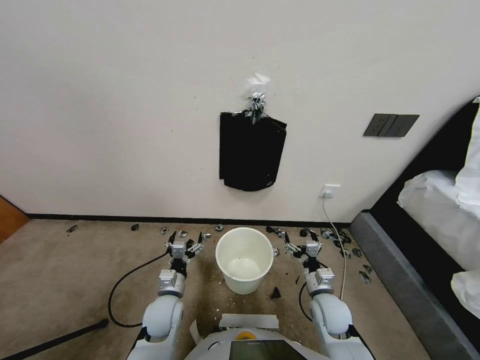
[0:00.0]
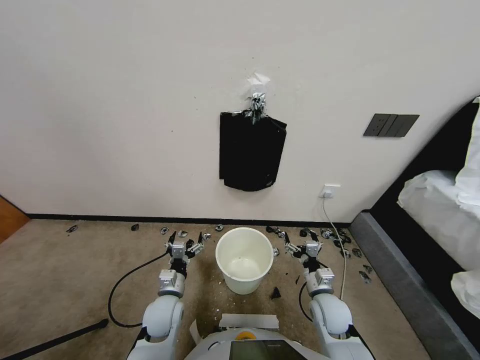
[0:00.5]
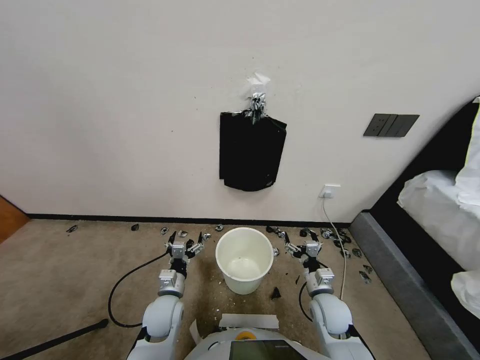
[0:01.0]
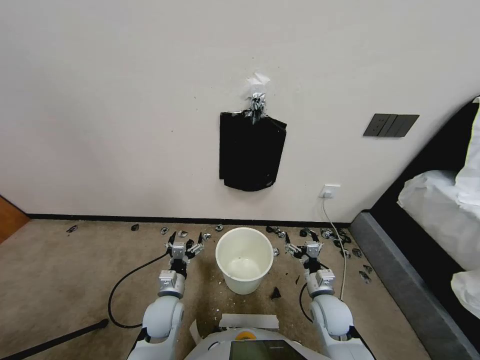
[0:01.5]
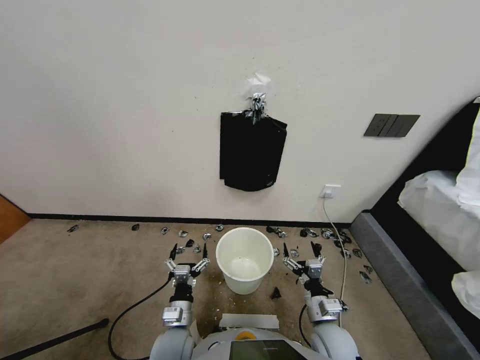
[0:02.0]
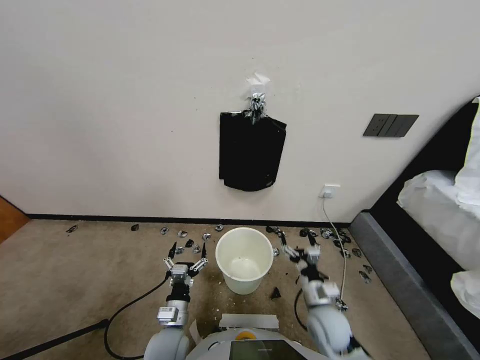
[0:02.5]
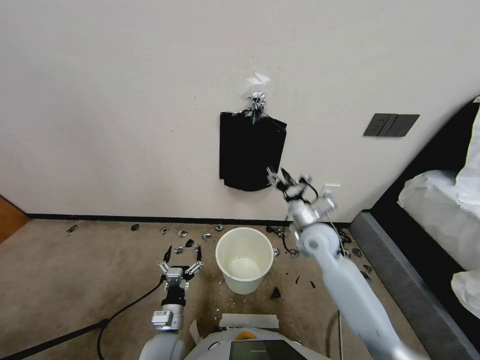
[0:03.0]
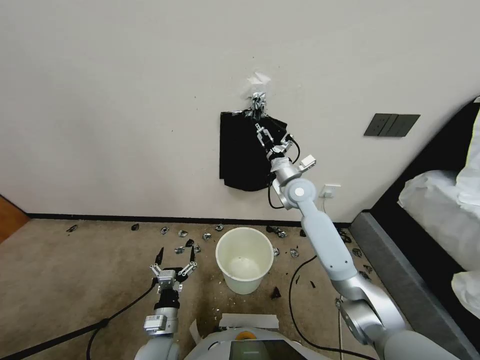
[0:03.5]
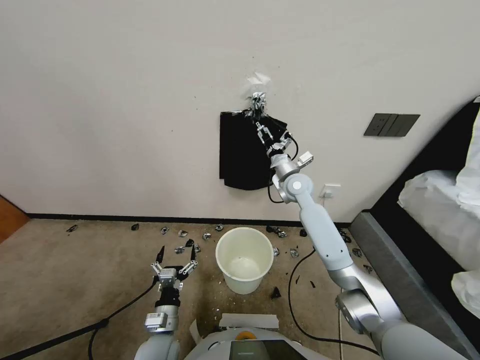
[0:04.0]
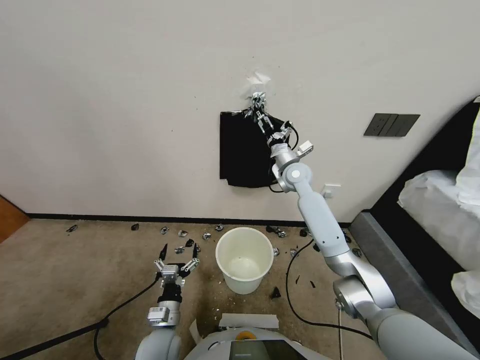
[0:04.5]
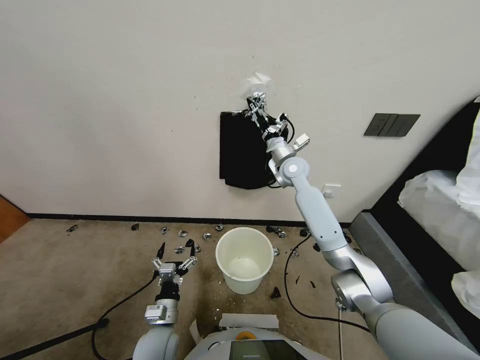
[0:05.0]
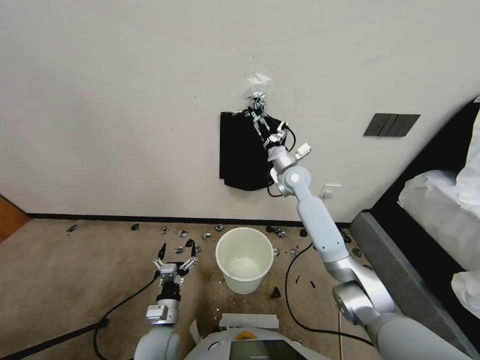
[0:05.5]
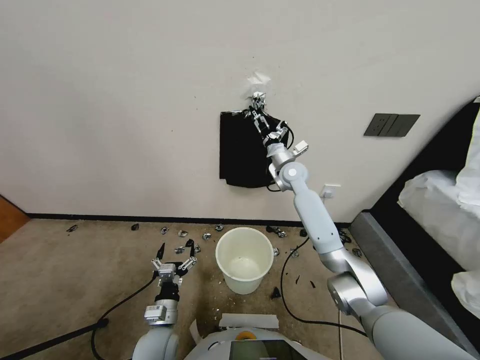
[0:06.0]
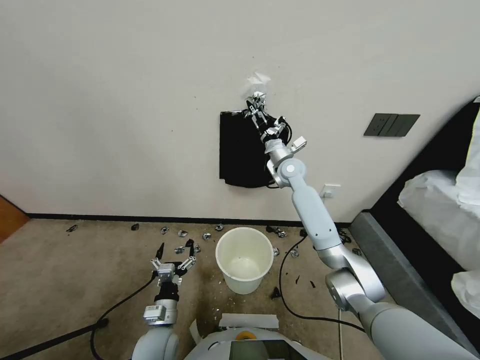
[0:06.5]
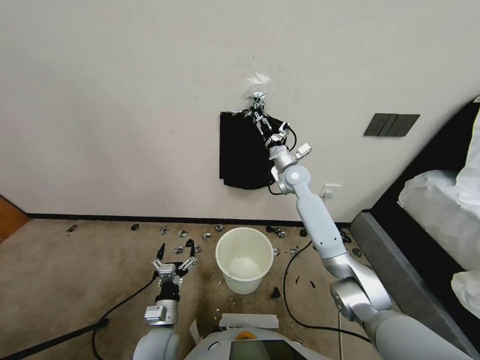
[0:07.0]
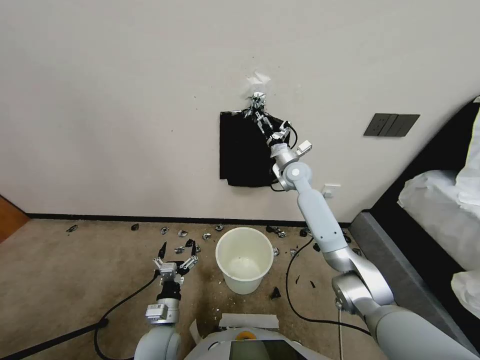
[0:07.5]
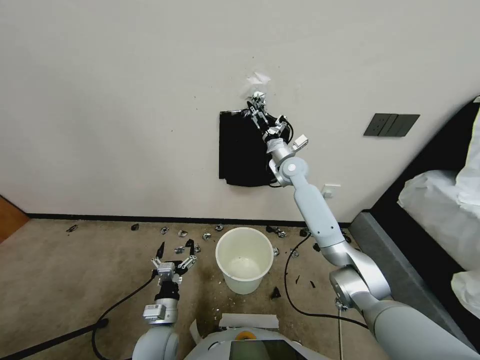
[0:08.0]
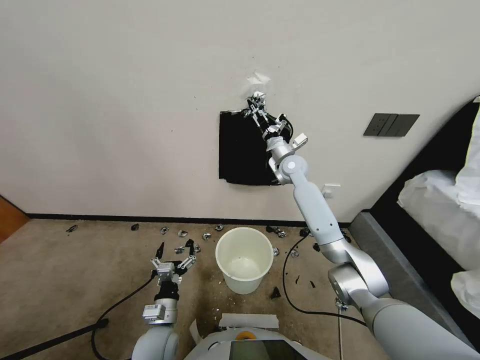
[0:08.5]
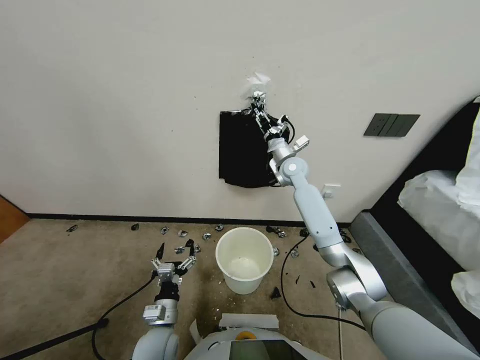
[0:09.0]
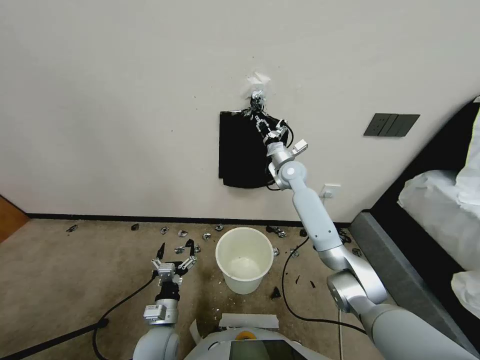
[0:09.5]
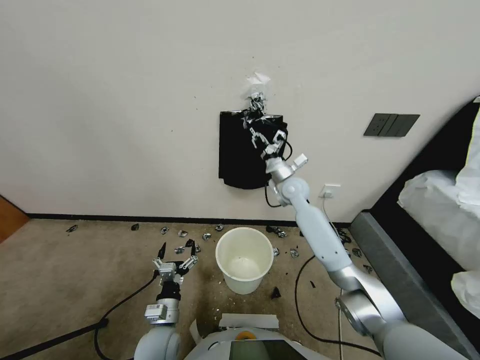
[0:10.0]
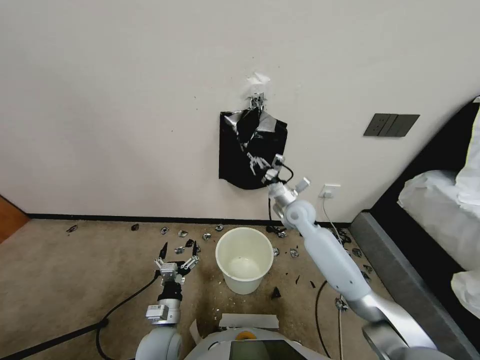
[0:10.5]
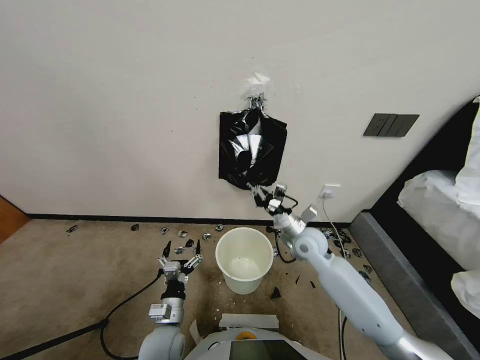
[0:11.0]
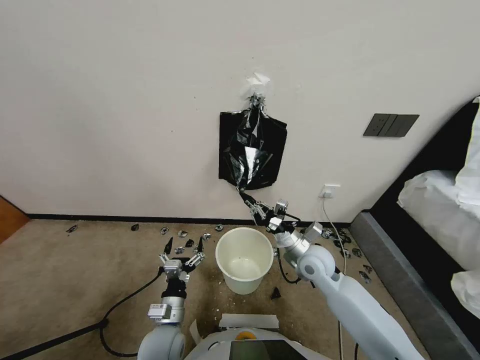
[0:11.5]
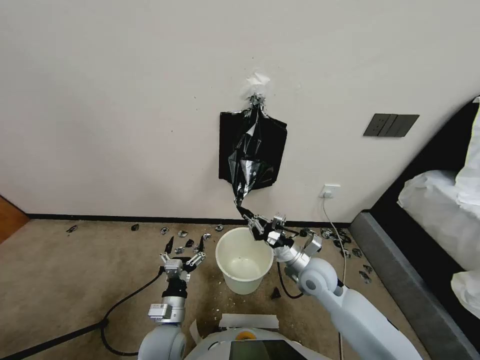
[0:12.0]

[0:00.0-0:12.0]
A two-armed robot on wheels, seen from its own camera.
Task of the whole recording: Place a trash bag onto the trash bin.
0:02.0 to 0:04.0: The right gripper heads forward and upward, covering some 40 cm.
0:04.0 to 0:08.0: The grippers make only small movements.
0:08.0 to 0:10.0: The right gripper shifts some 10 cm backward and downward, and closes up.
0:10.0 to 0:12.0: The right gripper goes approximately 25 cm backward and downward.

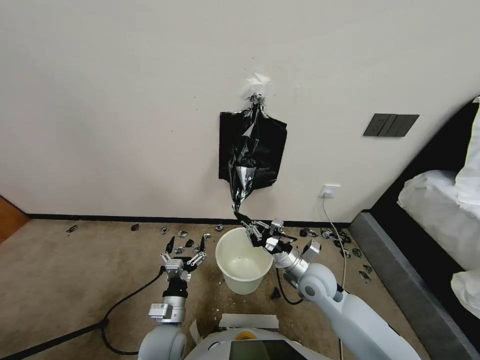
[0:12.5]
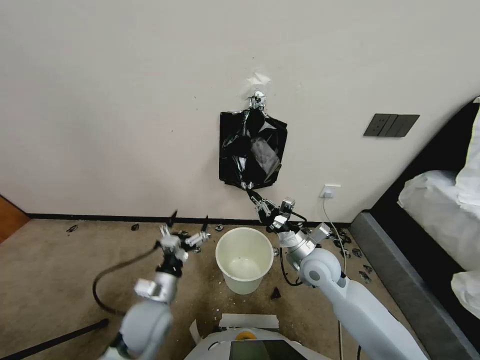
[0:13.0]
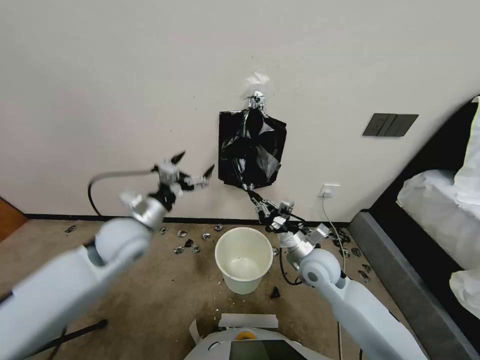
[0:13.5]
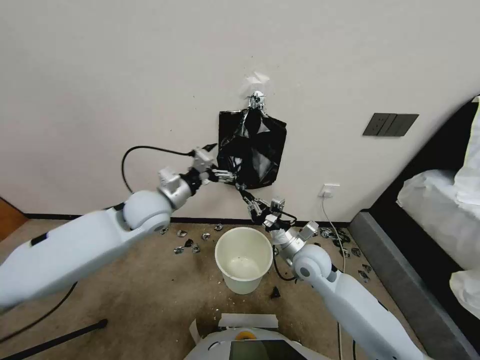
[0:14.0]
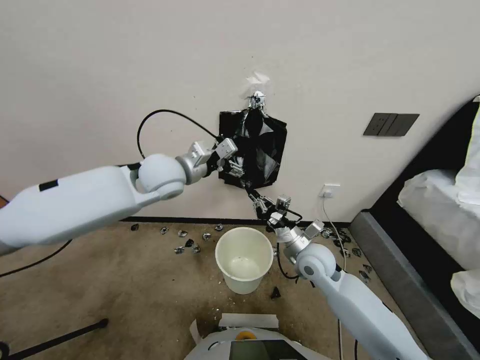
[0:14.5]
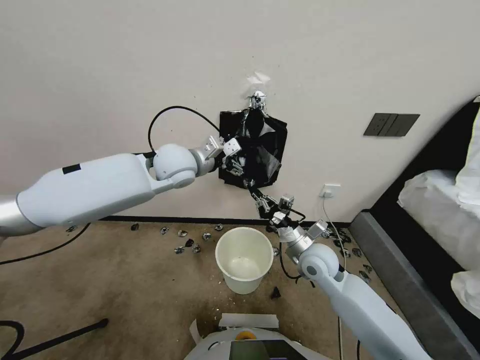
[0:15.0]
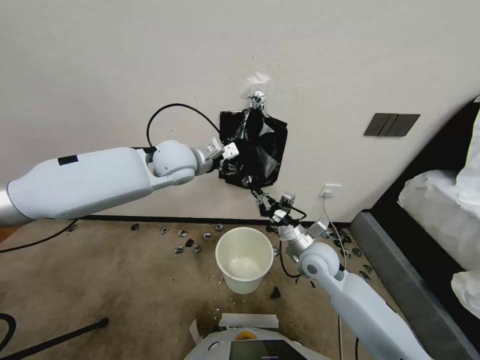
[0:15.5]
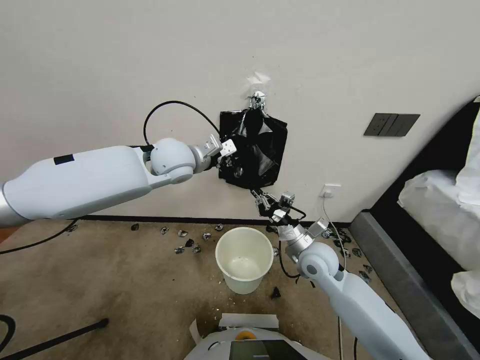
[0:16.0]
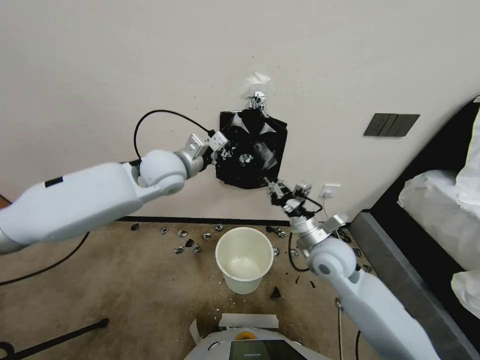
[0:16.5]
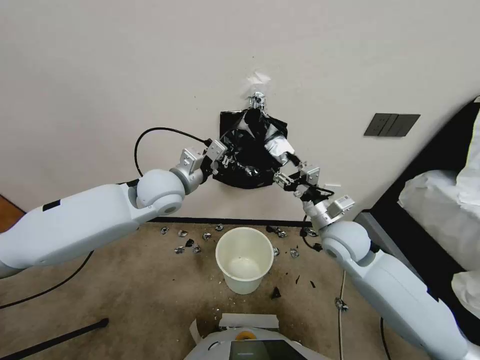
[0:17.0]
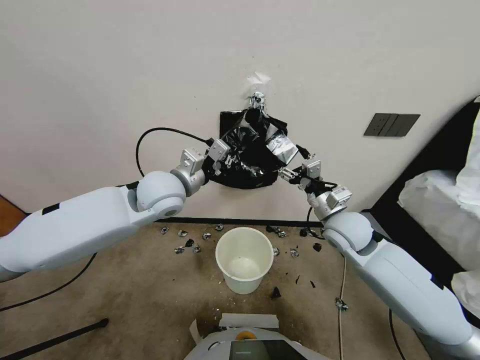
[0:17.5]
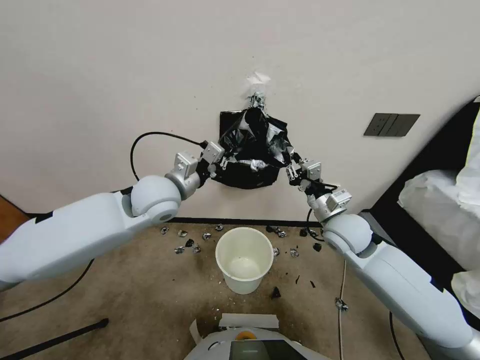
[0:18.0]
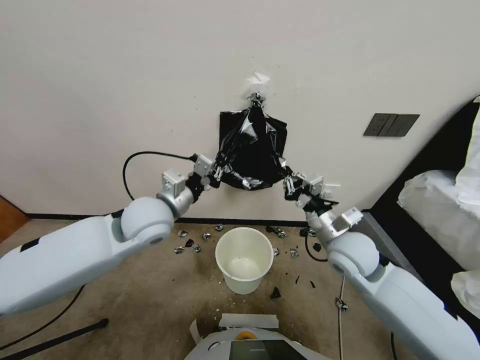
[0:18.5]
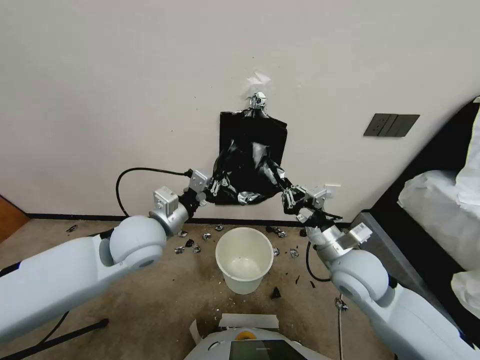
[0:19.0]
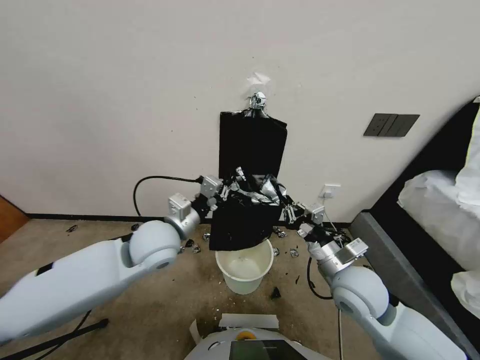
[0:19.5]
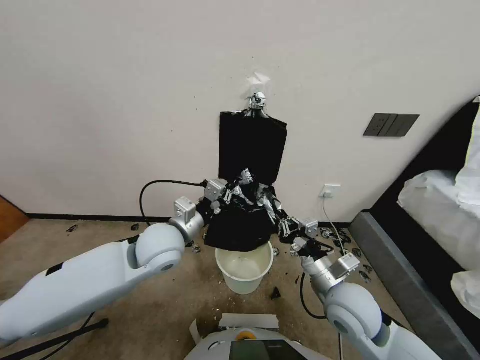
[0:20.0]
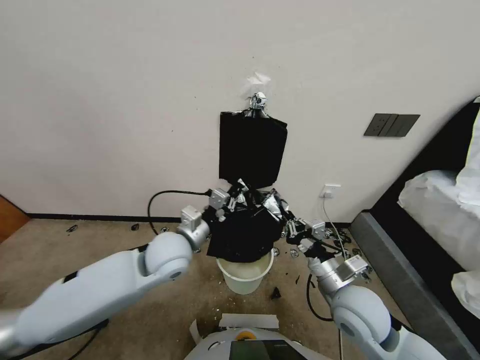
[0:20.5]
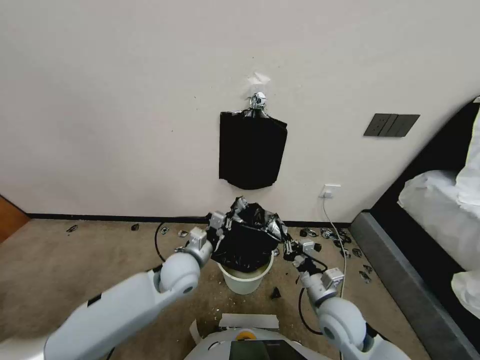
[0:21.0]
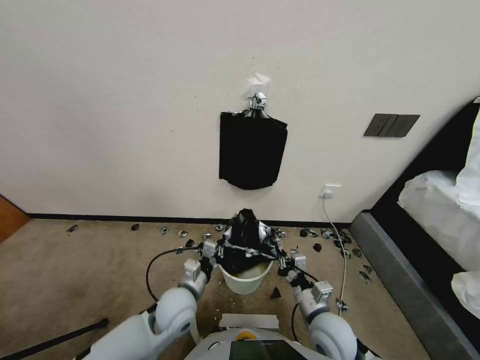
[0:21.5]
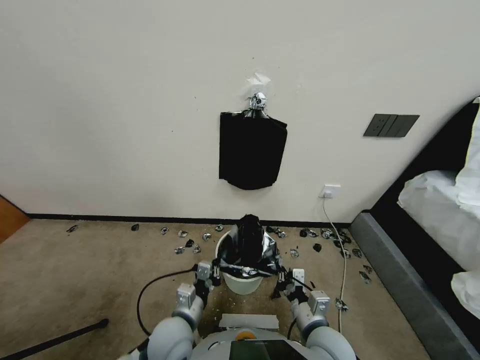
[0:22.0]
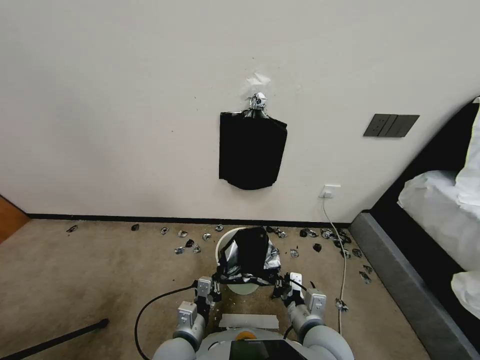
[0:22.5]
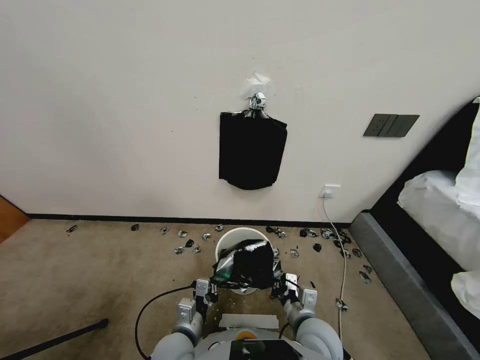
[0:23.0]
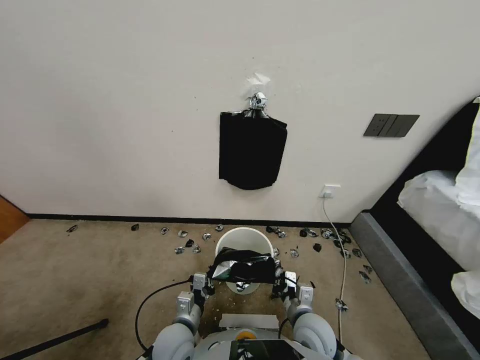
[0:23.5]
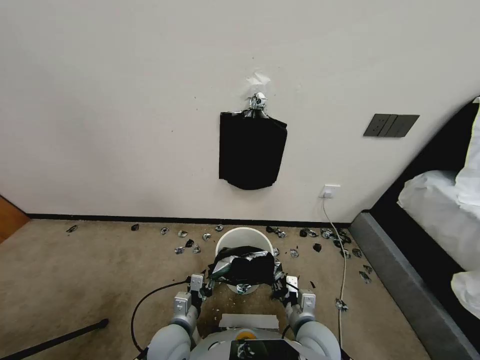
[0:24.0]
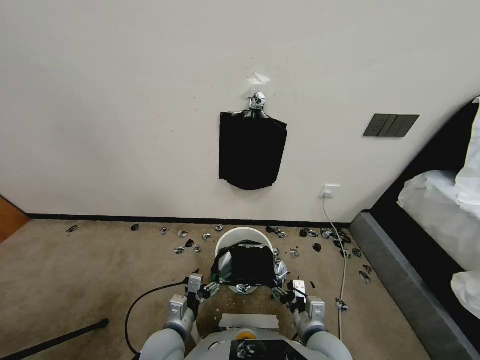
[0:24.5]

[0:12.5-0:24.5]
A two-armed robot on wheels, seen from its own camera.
Task of the whole recording: Place a trash bag onto the trash bin.
0:12.5 to 0:14.5: The left gripper heads upward and forward, covering about 40 cm.
0:14.5 to 0:16.5: The left gripper closes its fingers. The right gripper is displaced upward by about 5 cm.
0:16.5 to 0:18.5: The right gripper opens and closes again; the left gripper goes about 10 cm backward.
0:18.5 to 0:20.5: The left gripper travels downward and to the right by about 10 cm. The right gripper heads backward and downward, covering roughly 10 cm.
0:20.5 to 0:22.5: The left gripper shifts about 25 cm backward and downward; the right gripper heads to the left, backward and downward, covering some 10 cm.
0:22.5 to 0:24.5: The left gripper opens up; the right gripper changes place by roughly 5 cm, and opens up.

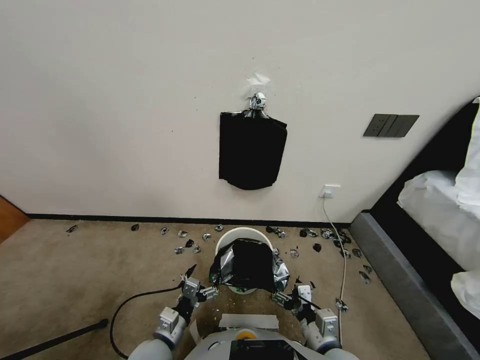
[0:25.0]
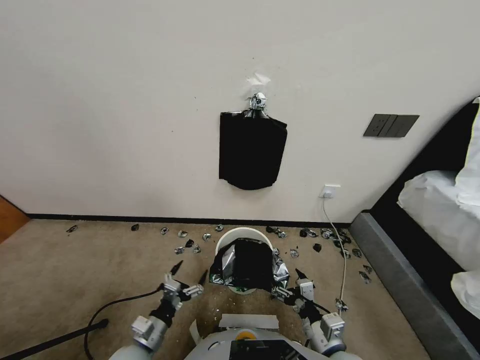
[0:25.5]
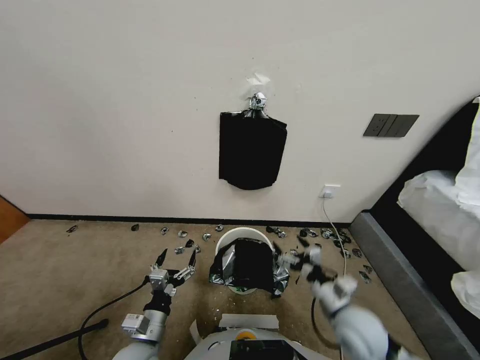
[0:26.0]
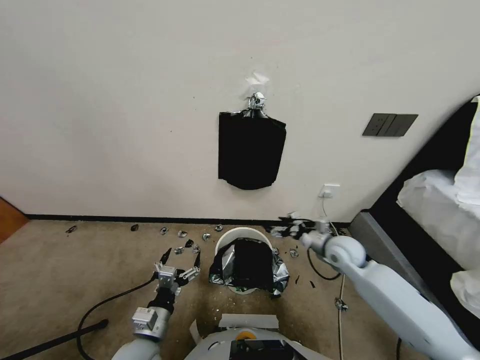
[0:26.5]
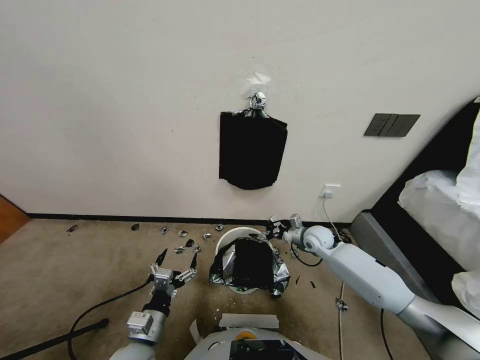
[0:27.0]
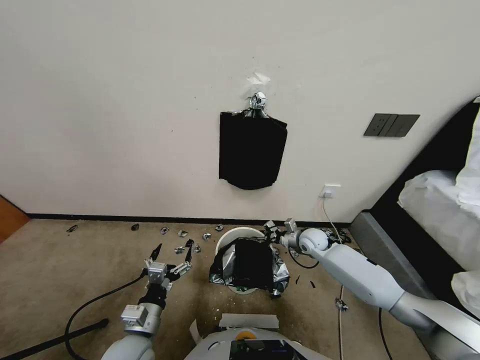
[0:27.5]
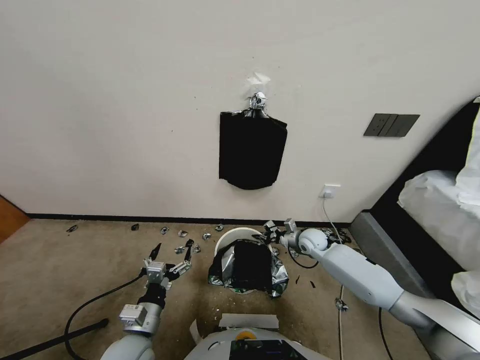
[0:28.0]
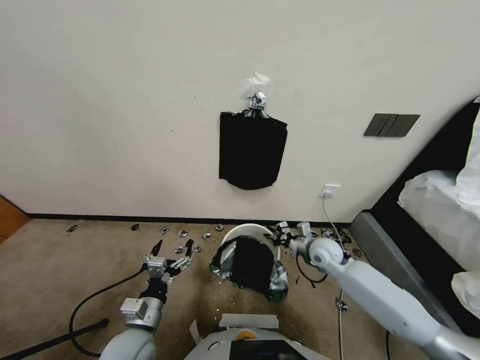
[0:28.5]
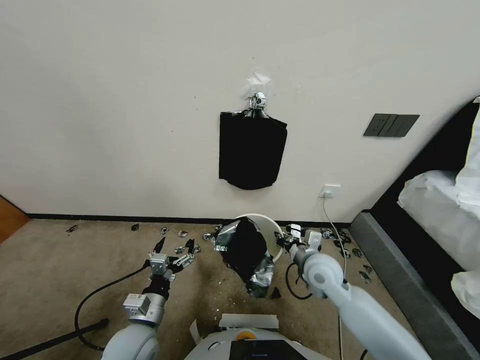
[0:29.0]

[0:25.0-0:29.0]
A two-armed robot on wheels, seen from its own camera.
Task of the whole recording: Place a trash bag onto the trash bin.
0:25.0 to 0:27.0: The right gripper shifts approximately 35 cm forward.
0:27.0 to 0:29.0: The right gripper shifts roughly 15 cm backward and to the left, and closes.
